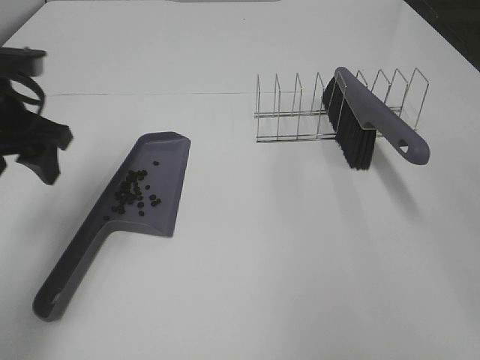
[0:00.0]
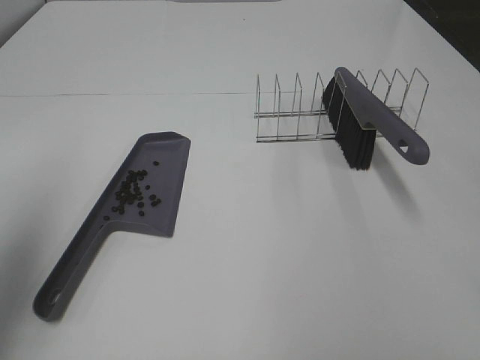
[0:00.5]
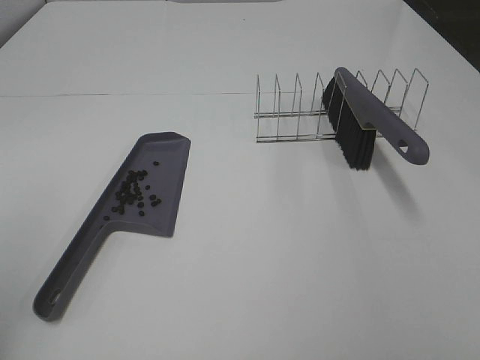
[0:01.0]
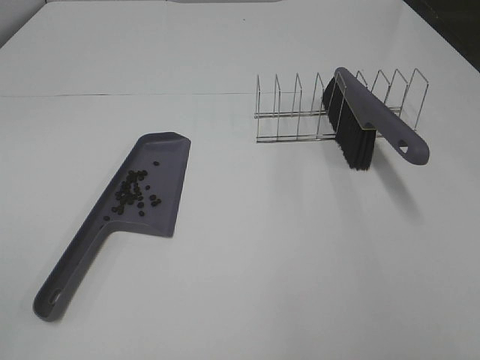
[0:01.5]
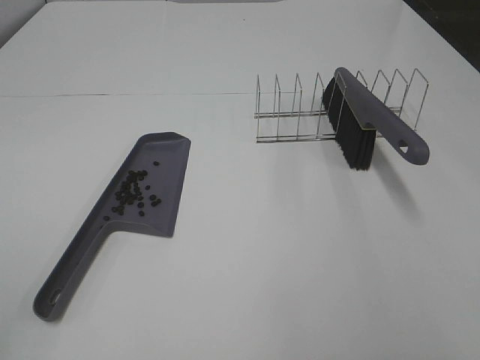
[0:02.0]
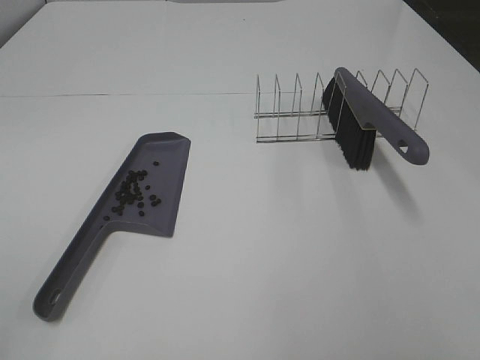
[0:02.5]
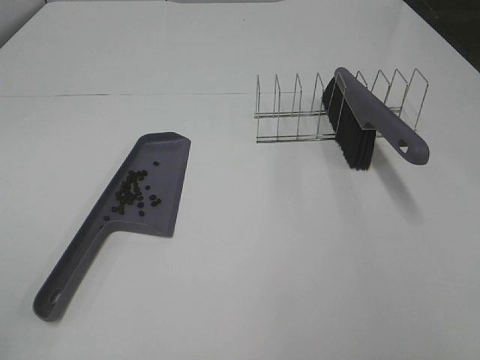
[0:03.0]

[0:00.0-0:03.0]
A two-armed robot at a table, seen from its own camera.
Task of the whole recording: Sweep Coffee Bean.
0:00.0 to 0:01.5: The left gripper travels backward by some 35 cm.

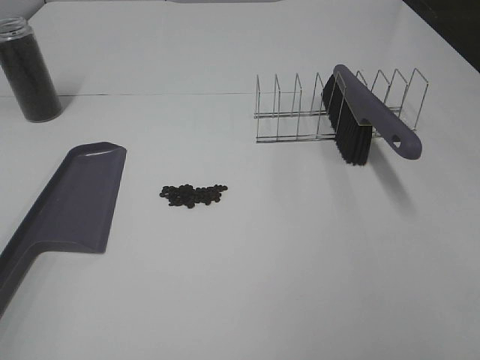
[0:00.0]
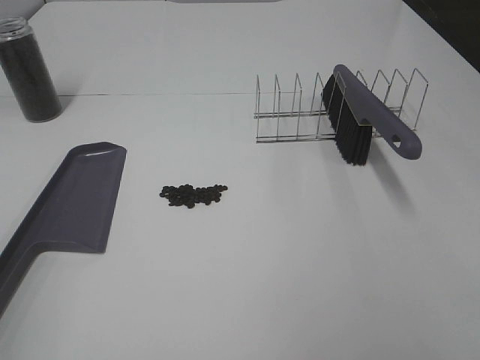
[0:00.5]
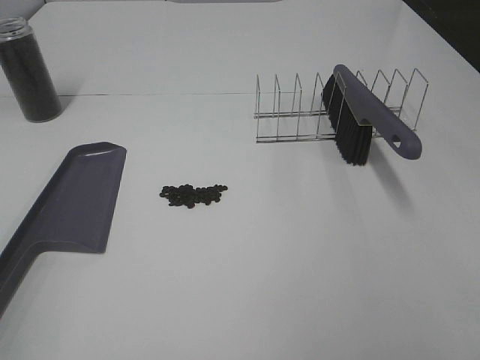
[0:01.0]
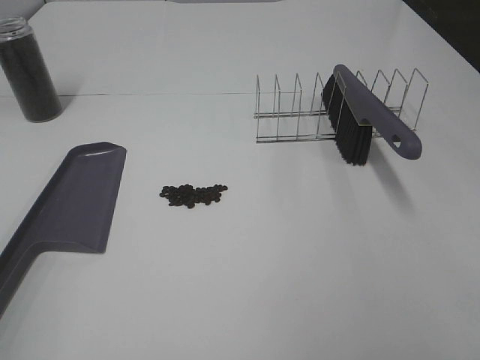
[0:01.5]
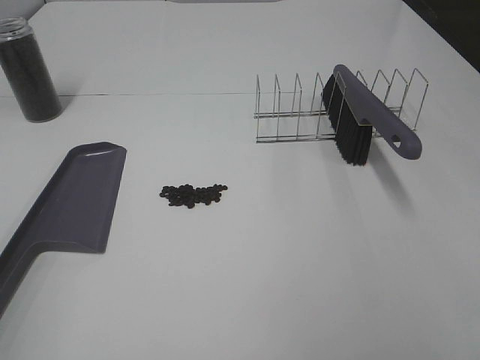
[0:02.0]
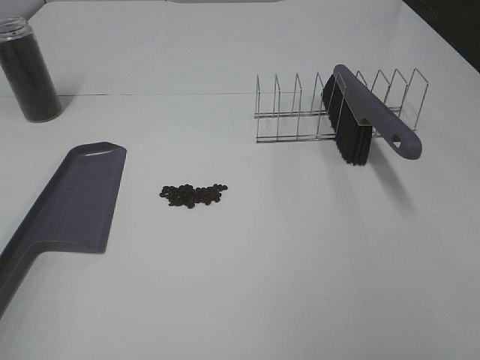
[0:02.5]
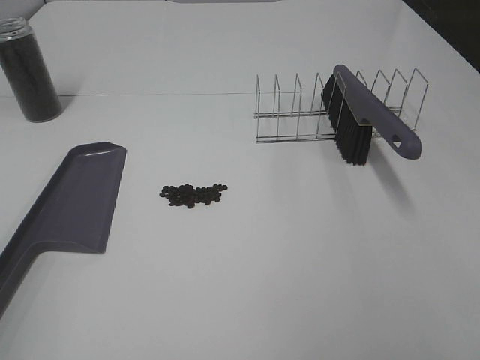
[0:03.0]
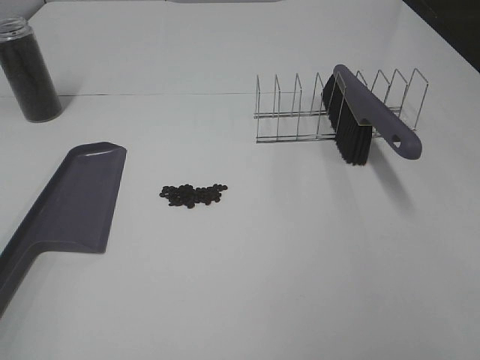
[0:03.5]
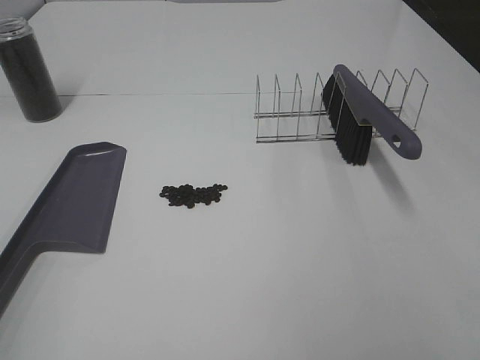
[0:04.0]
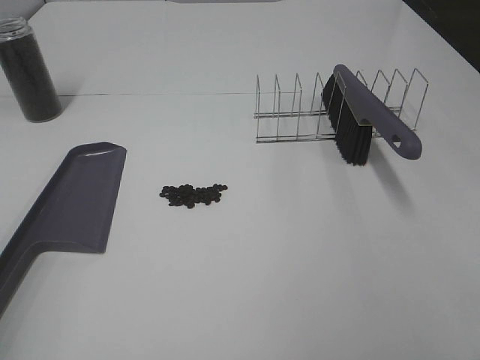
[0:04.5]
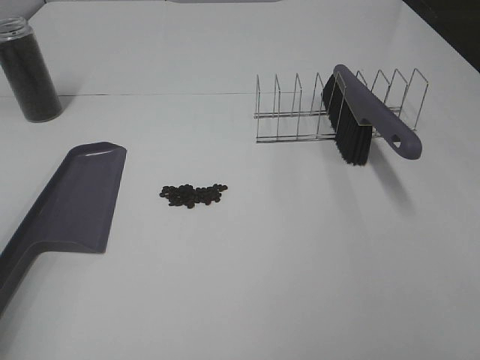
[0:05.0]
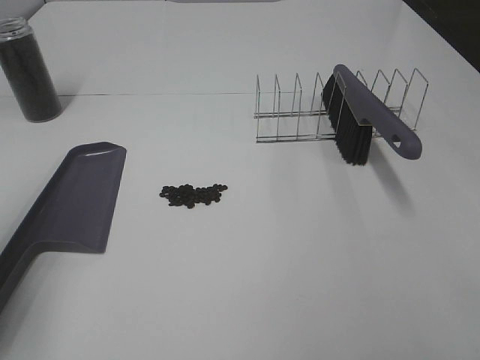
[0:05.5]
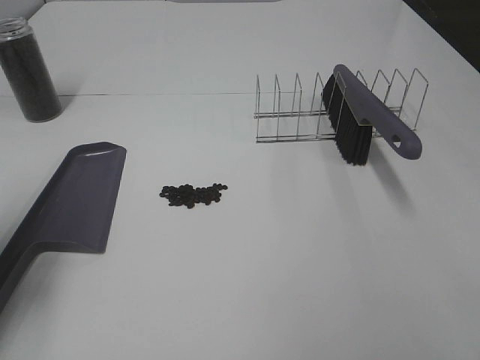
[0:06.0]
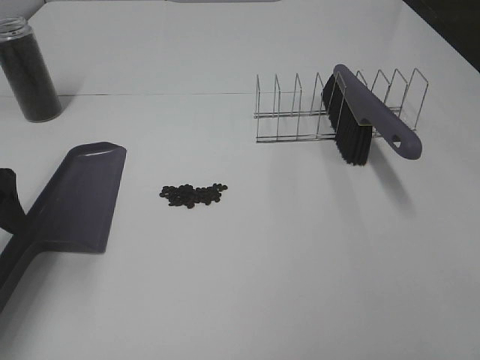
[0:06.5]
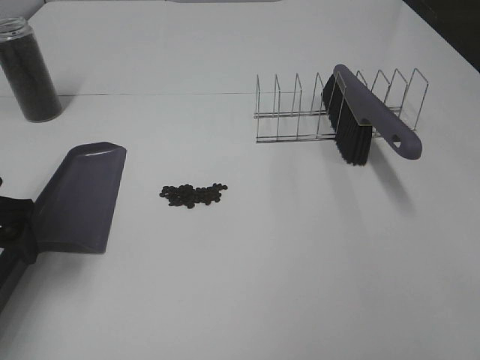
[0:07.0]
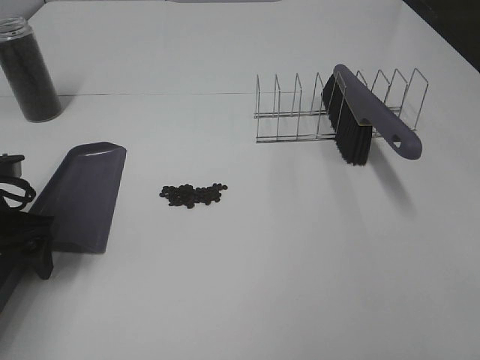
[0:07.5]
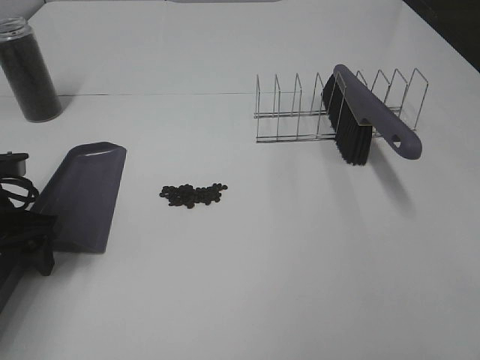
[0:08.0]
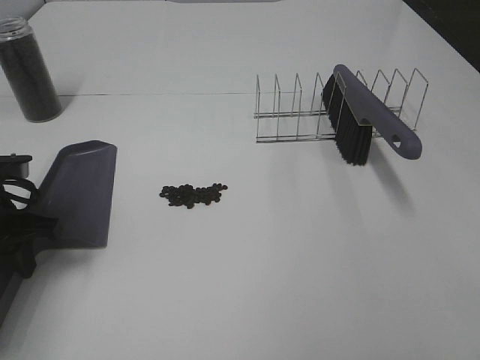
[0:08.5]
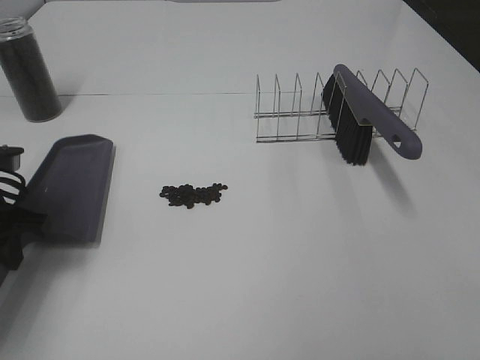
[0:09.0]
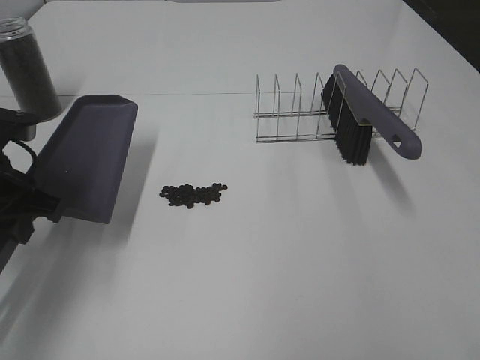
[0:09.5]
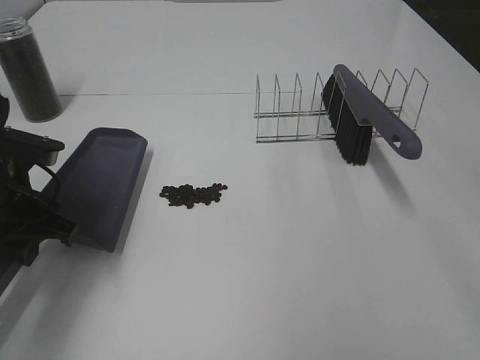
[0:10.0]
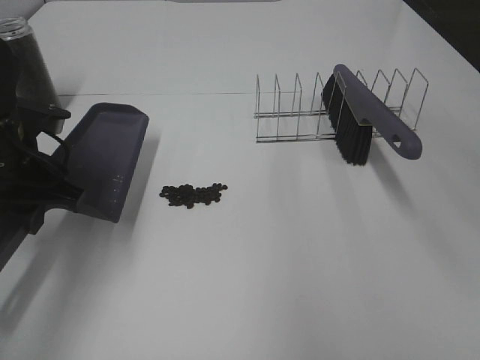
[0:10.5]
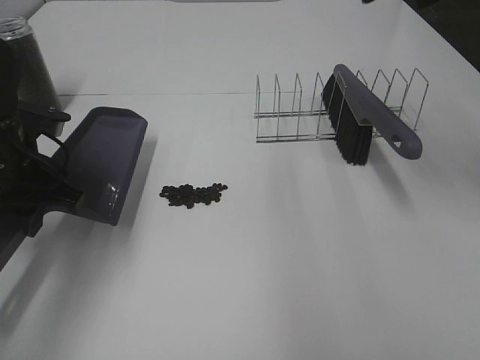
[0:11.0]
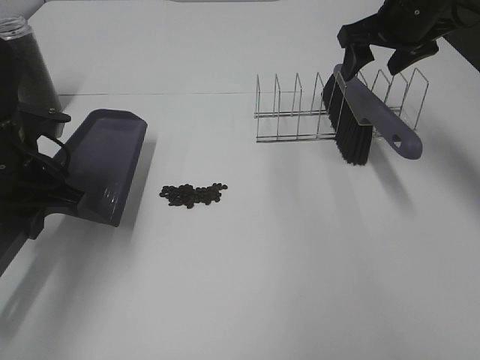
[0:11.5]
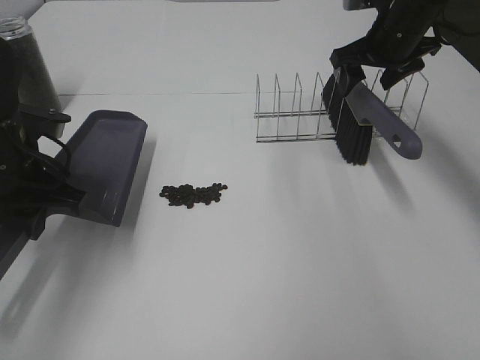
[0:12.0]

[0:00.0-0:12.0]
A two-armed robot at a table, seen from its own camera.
Task of the whole recording: Sweep Coffee Bean.
Step, 0:00.0 to 0:08.5: Left hand: grab the dustpan.
0:00.0 to 0:04.0: Neither gripper changes place.
0:04.0 to 0:06.0: The left gripper goes approximately 20 cm forward.
0:06.0 to 0:08.0: The left gripper goes approximately 10 cm downward and forward.
0:08.0 to 0:10.0: The left gripper ends up about 5 cm from where it was, and closes its fingers.
0:10.0 to 0:12.0: The right gripper goes about 40 cm forward and downward.

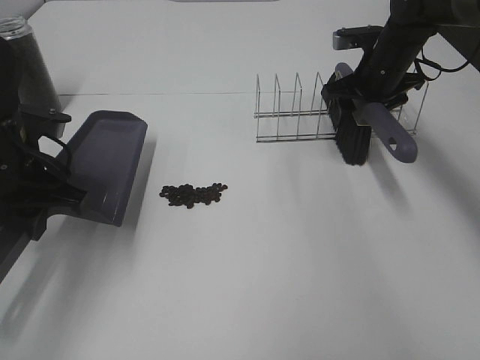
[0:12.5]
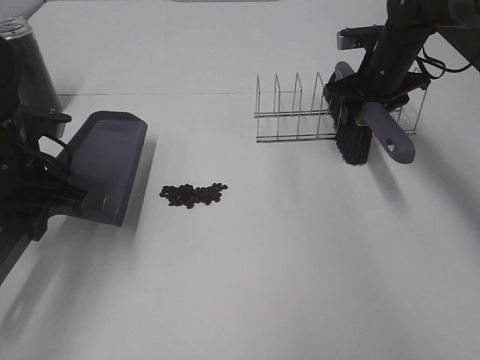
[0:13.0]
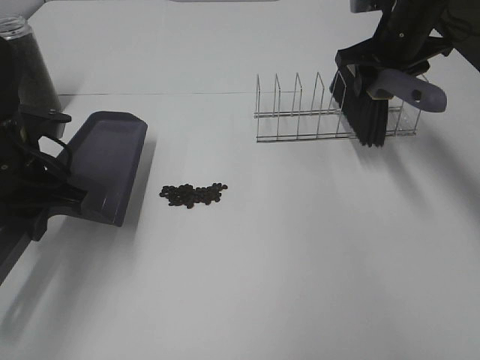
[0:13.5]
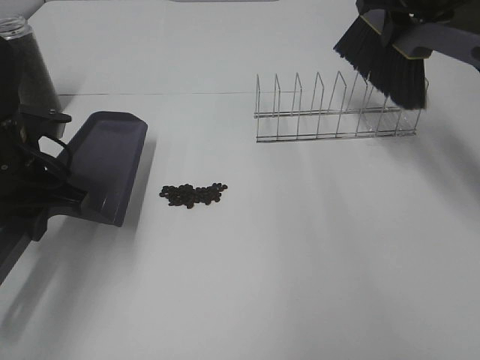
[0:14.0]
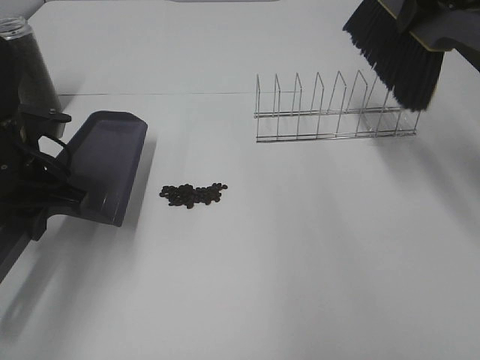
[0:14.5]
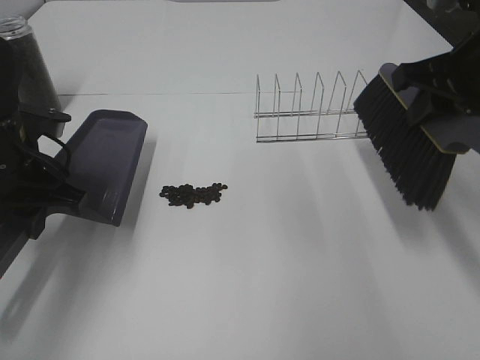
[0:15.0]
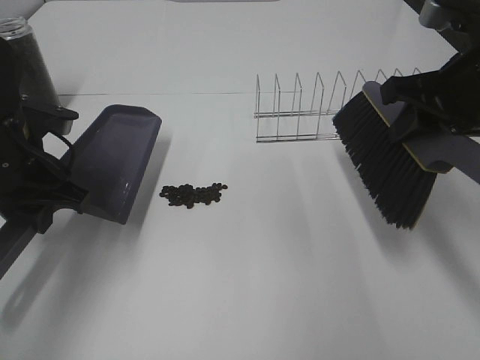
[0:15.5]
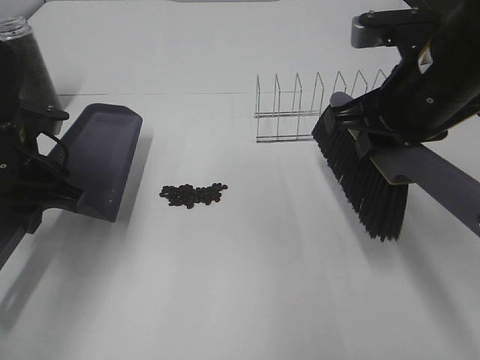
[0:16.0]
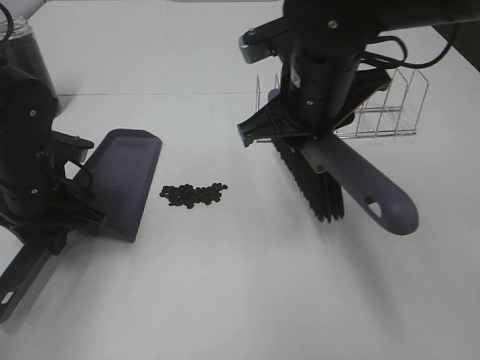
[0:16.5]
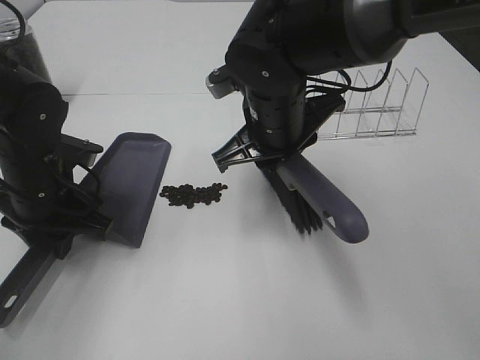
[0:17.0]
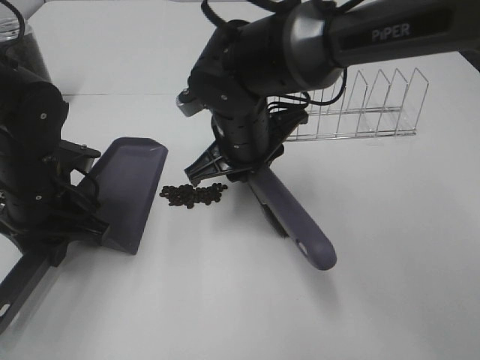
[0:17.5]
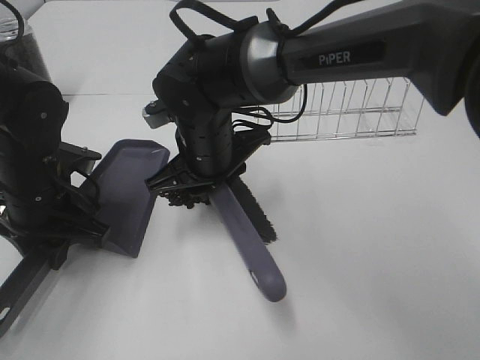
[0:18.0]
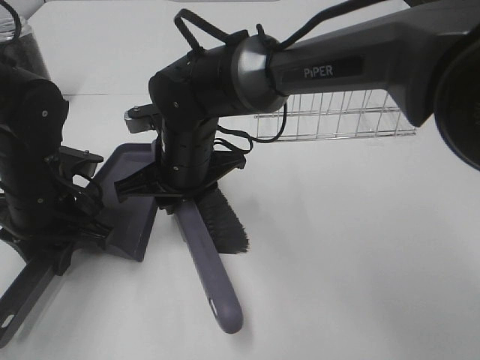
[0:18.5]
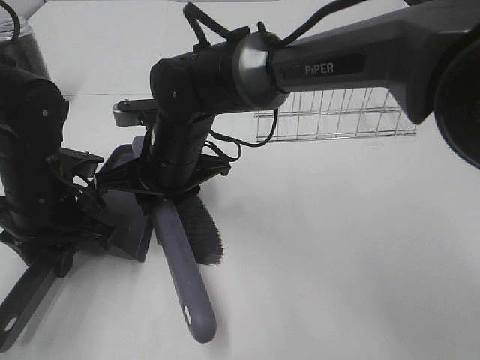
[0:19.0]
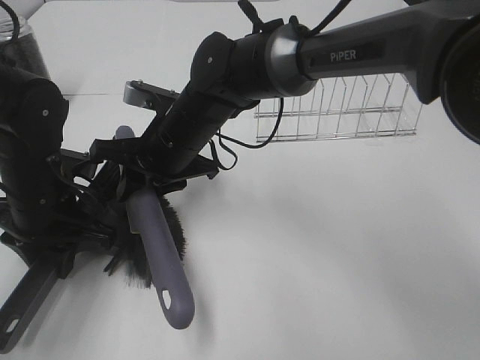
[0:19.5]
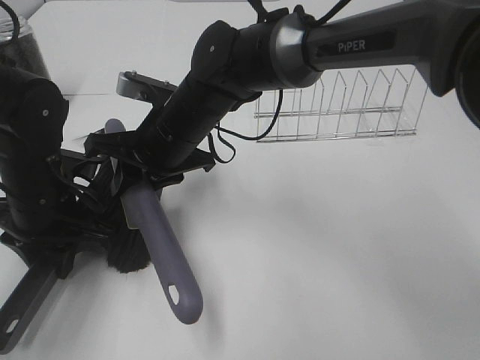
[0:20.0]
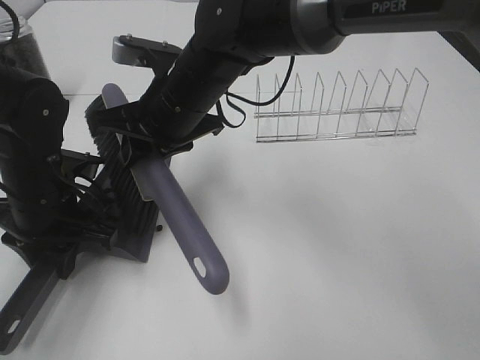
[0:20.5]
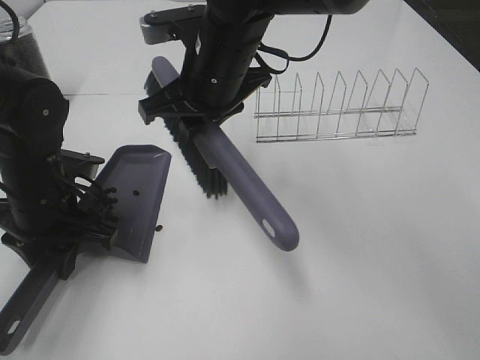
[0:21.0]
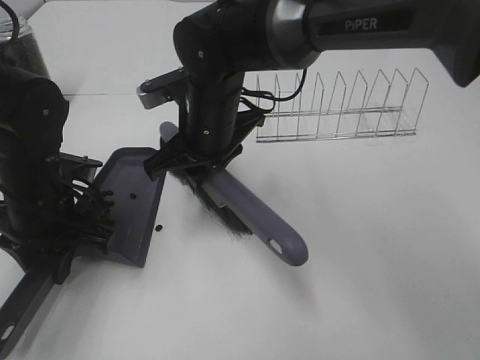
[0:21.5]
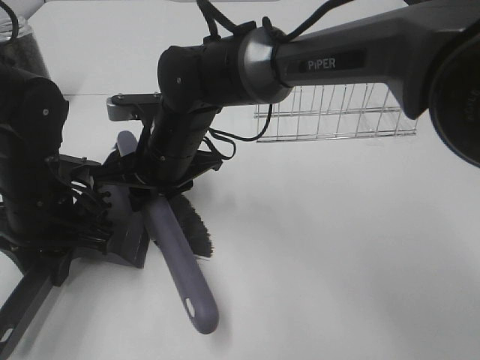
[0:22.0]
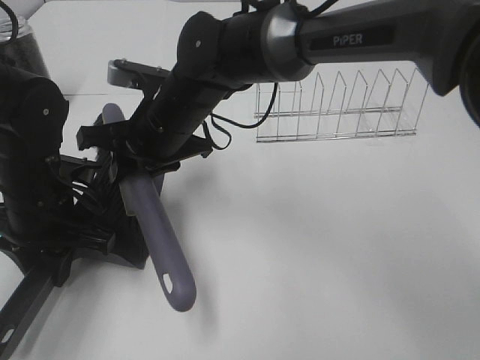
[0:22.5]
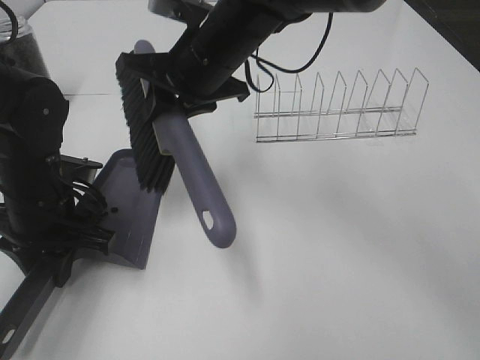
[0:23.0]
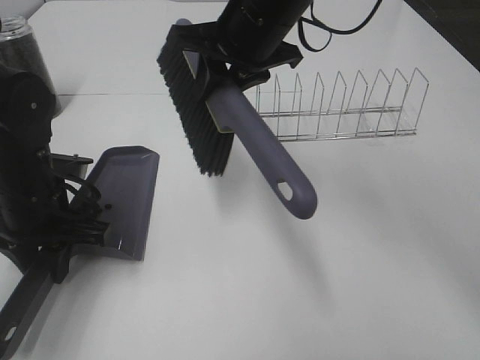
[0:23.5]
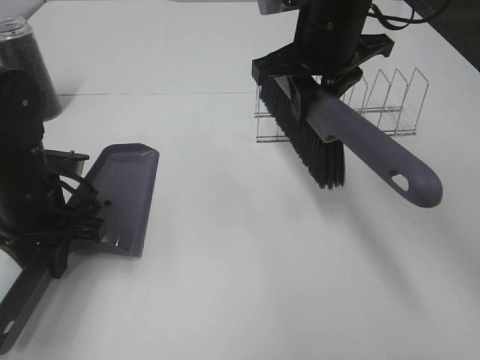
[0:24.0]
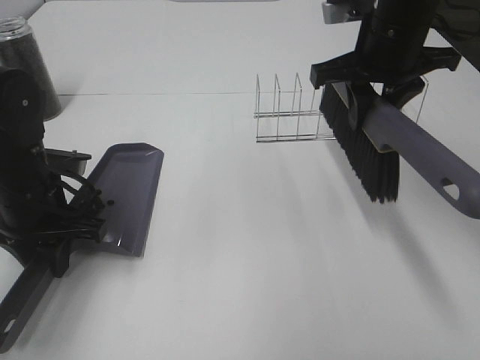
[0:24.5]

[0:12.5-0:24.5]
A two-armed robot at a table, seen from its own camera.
Task of the whole recording: Sweep Coffee Bean.
Step, 0:13.0 to 0:22.5: Right hand:sweep the coffee beans into the dustpan.
0:12.5 to 0:14.5: The right gripper goes approximately 20 cm upward and backward, and closes.
0:14.5 to 0:16.5: The right gripper is displaced to the left and downward by approximately 20 cm.
0:16.5 to 0:18.5: The right gripper shifts about 15 cm to the left and downward.
0:18.5 to 0:20.5: The right gripper travels upward by some 5 cm.
0:22.5 to 0:24.5: The right gripper moves to the right and upward, approximately 25 cm.
